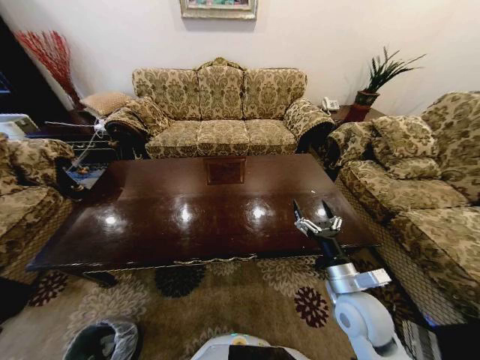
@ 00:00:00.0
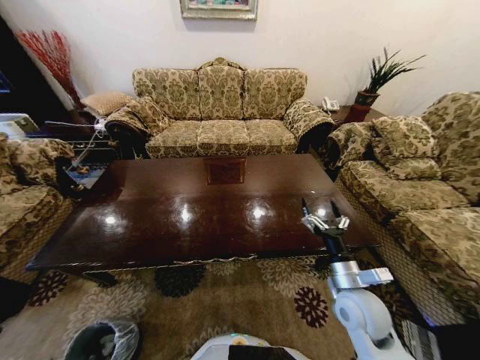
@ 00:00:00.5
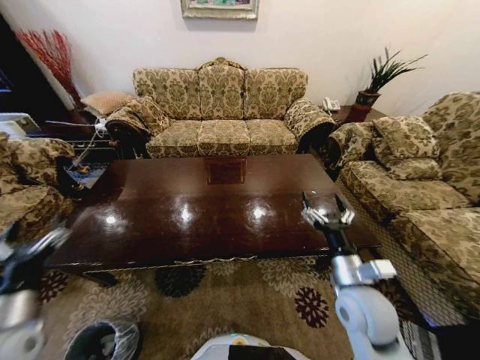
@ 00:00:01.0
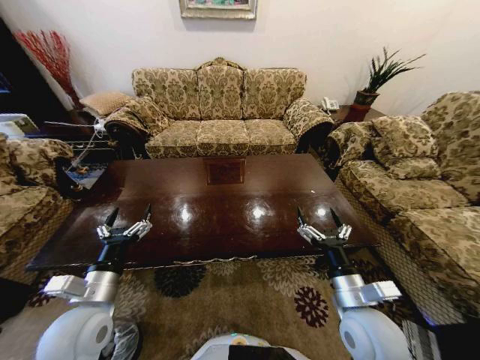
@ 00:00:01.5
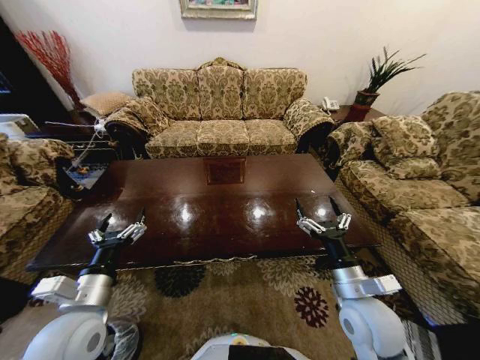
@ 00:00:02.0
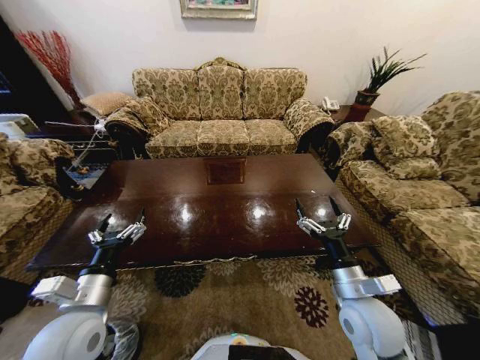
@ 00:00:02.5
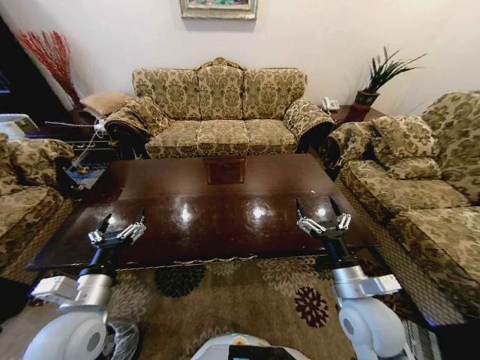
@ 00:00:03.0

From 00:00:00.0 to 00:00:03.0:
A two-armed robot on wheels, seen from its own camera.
Task of the whole recording: Move to the front of the table and place the trash on the table into the trash bin.
From 00:00:00.0 to 00:00:01.5: The left gripper travels upward and to the right by roughly 40 cm.
From 00:00:01.5 to 00:00:03.0: The grippers make only small movements.
